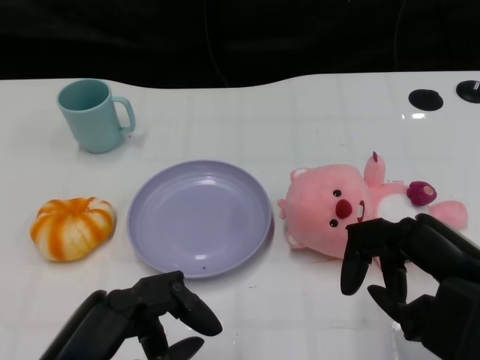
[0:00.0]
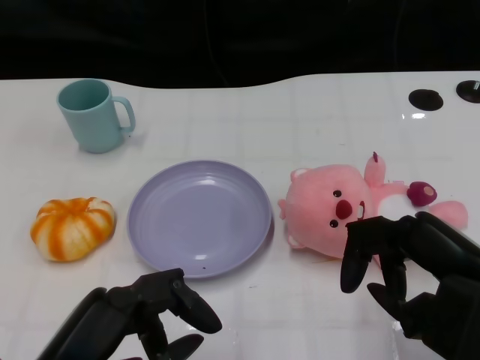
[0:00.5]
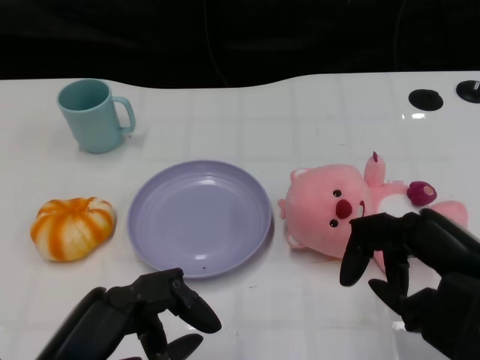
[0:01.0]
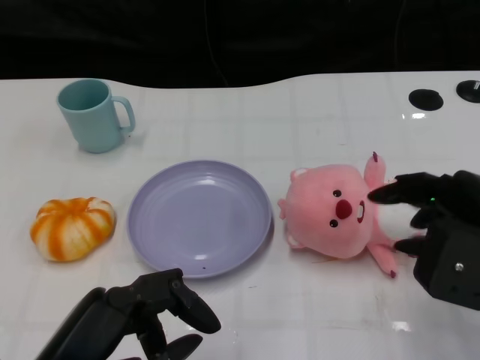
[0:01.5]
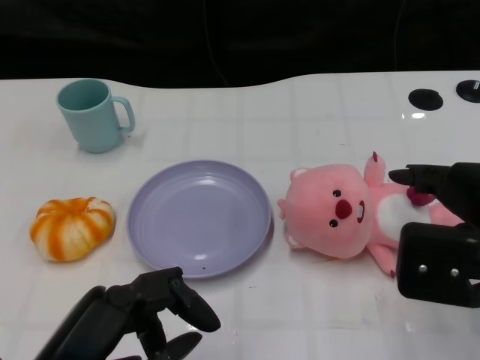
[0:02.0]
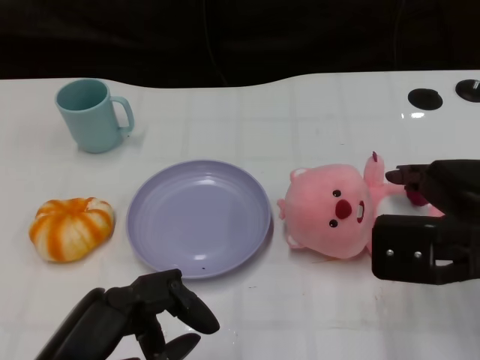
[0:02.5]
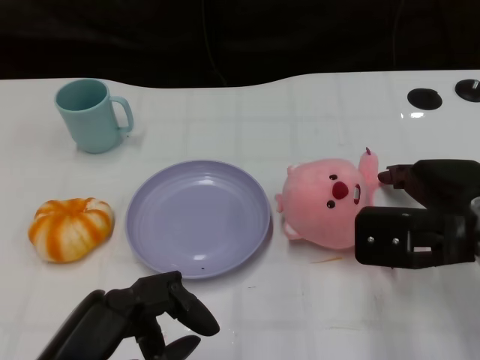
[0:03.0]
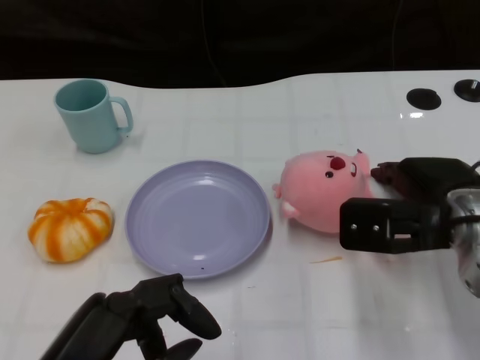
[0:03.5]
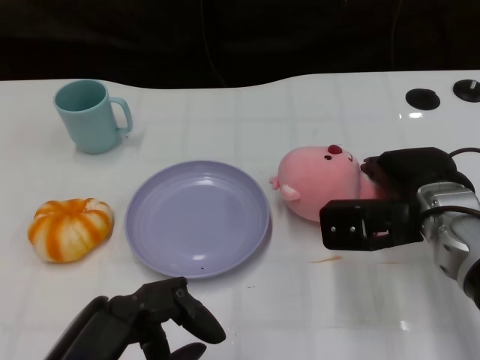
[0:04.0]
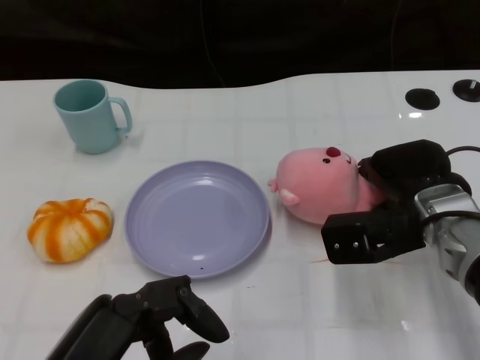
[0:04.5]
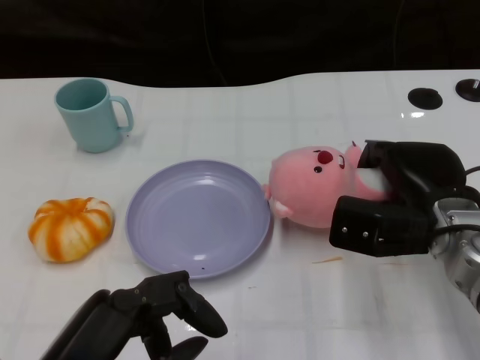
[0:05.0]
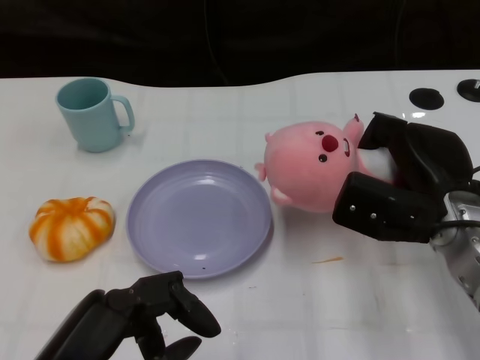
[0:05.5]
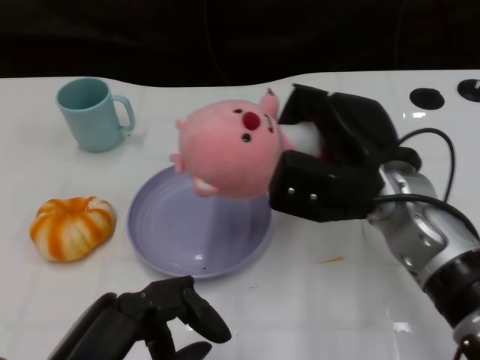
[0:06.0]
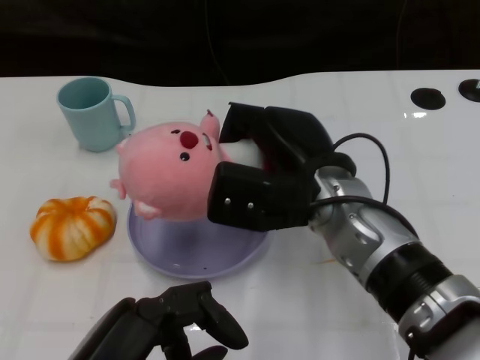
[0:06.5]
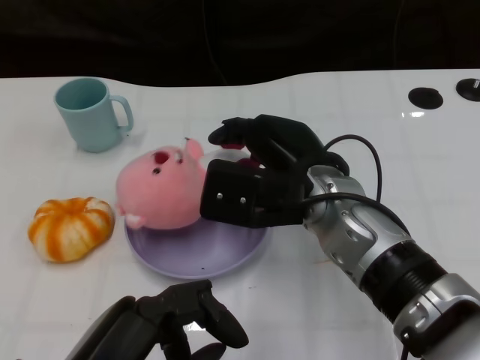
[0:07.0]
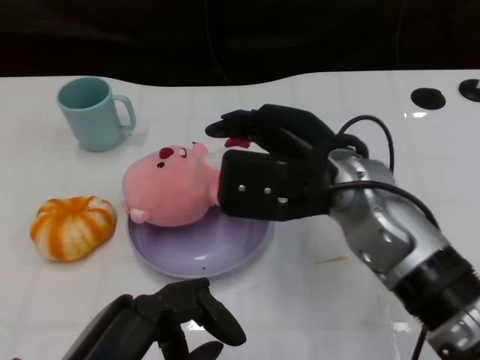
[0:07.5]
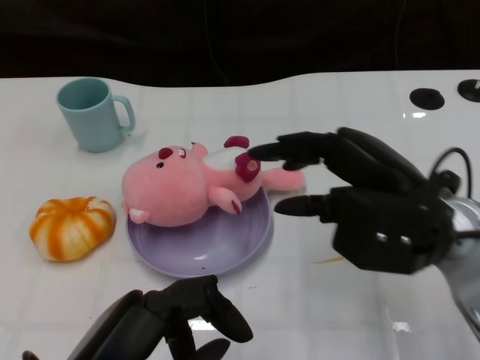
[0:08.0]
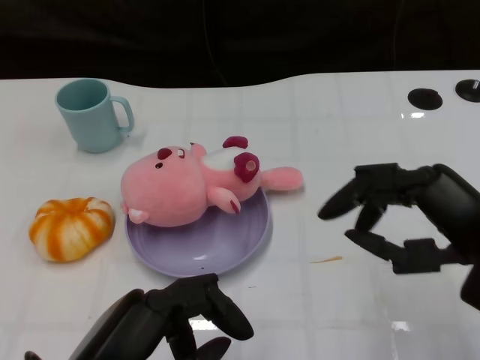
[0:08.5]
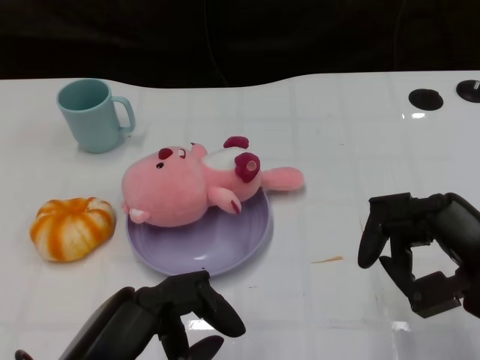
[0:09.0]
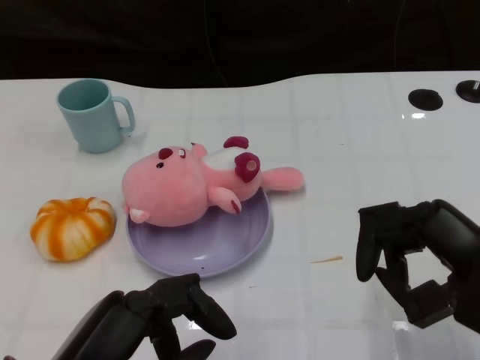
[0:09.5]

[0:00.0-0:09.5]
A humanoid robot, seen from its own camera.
Task of the whole recording: Pick up the doll on the other side of the plate and place it into the plate.
Step, 0:01.0 to 0:05.5: Grasp the pink doll with the right gripper.
Step, 0:06.0 to 0:08.0: Place the pink doll into the plate with the right gripper.
0:02.0 to 0:04.0: The right hand is displaced forward, downward and to the left by roughly 15 cm.
0:05.5 to 0:07.5: The right hand shifts about 15 cm to the left and upward.
0:07.5 to 0:09.5: The right hand travels to the right and backward by roughly 20 cm.

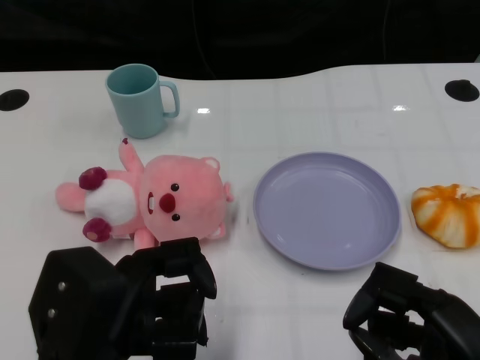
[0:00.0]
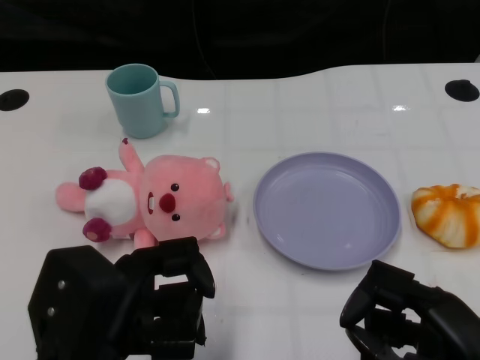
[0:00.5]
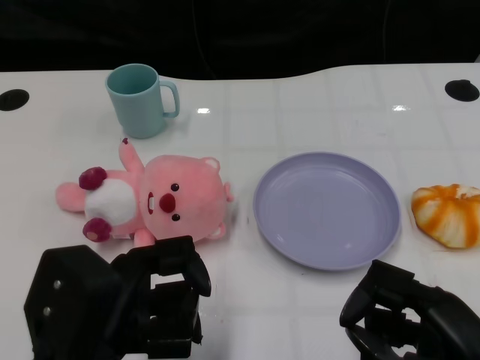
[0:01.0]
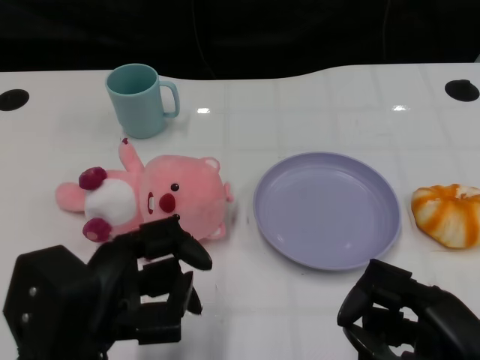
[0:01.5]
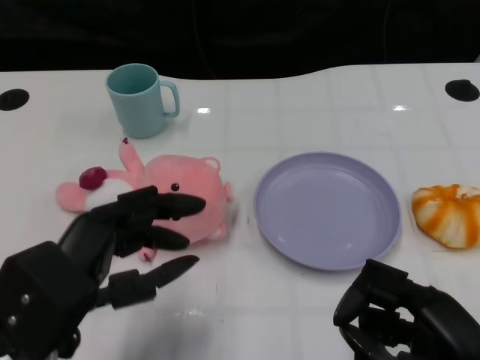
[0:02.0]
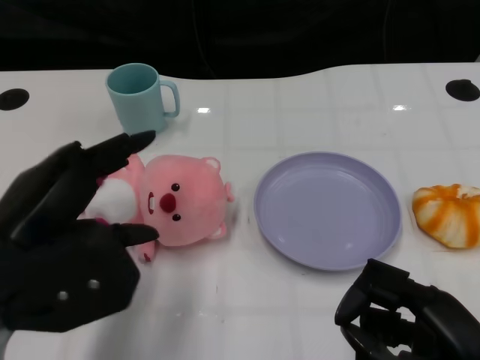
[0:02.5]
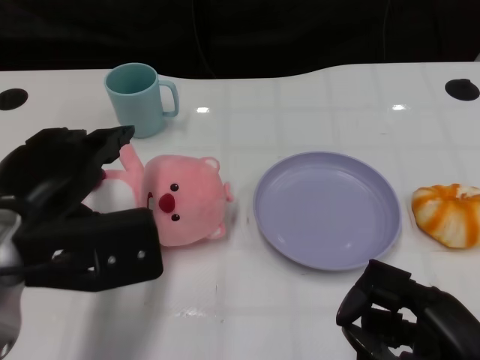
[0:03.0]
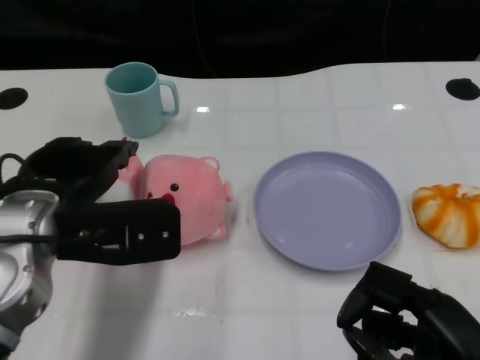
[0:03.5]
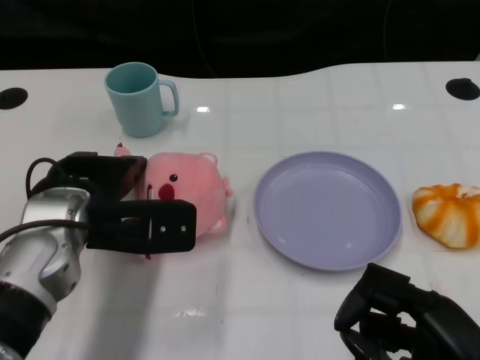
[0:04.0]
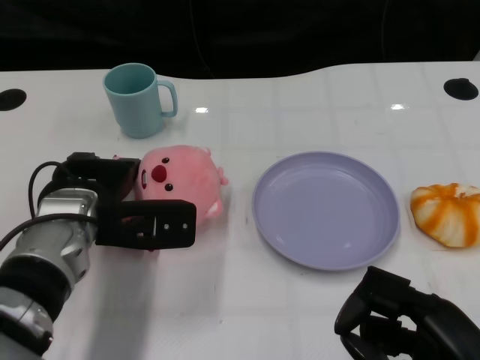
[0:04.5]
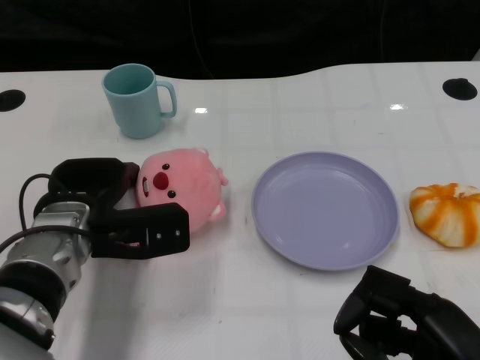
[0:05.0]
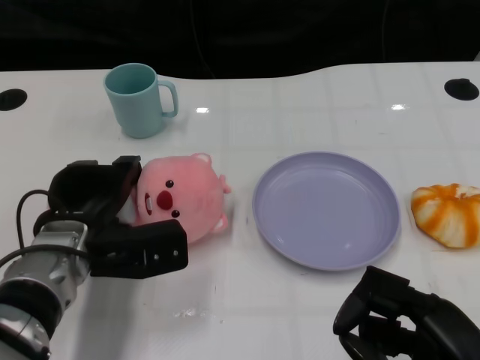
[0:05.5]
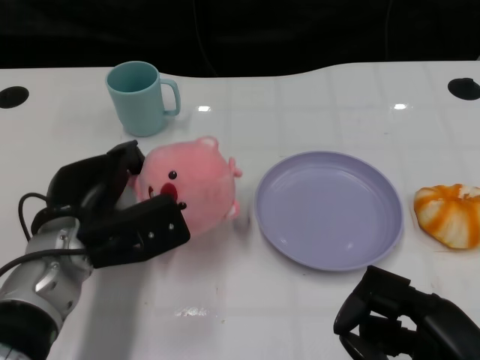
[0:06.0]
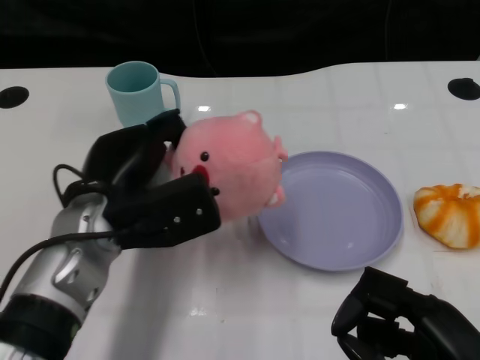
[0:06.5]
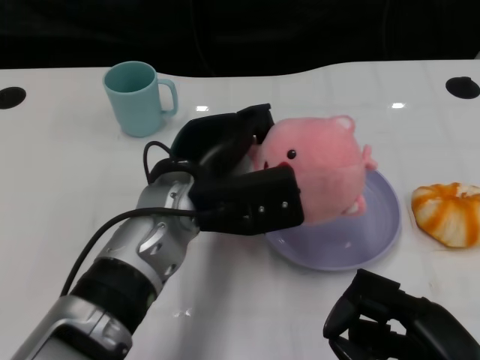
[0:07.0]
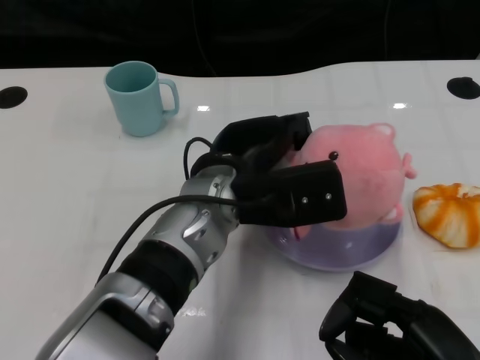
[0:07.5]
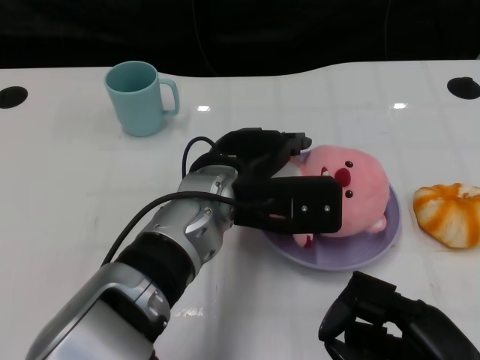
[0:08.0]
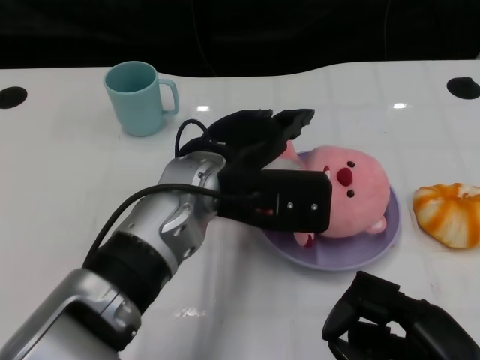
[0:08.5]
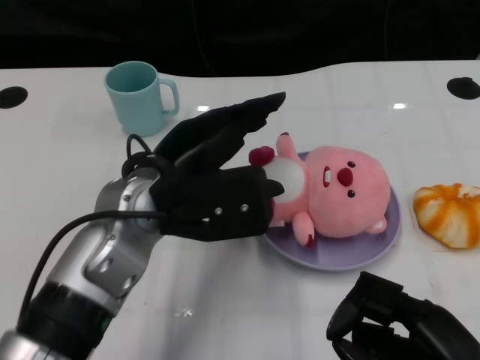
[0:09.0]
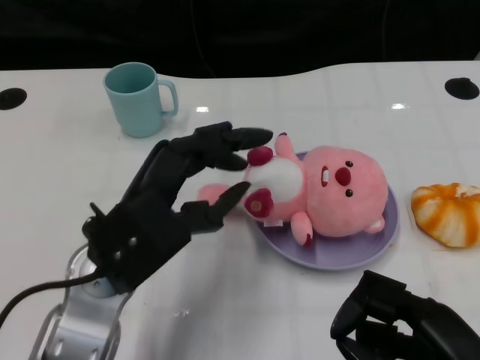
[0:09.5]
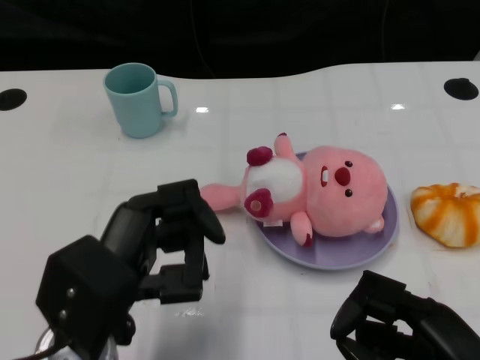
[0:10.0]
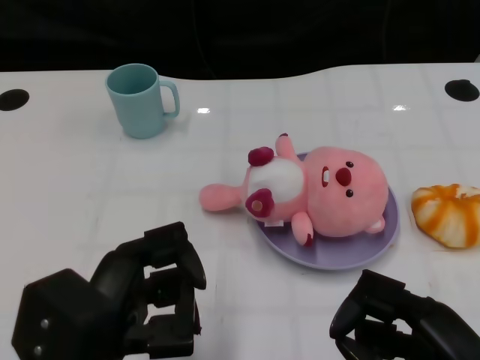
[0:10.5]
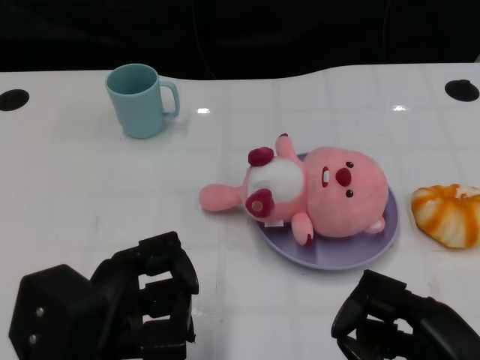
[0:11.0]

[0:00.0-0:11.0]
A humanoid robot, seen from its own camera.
Task of the whole recording: Pick up the doll on one side of the plate and place it into the plate.
Step, 0:01.5 to 0:06.0: Grasp the pink doll with the left gripper.
Step, 0:06.5 to 0:08.5: Place the pink doll into the plate with the left gripper.
0:02.0 to 0:03.5: The left hand is displaced forward by approximately 10 cm.
0:03.5 to 0:05.5: The left hand heads downward, covering roughly 10 cm.
0:05.5 to 0:07.5: The left hand goes some 15 cm to the right and upward.
0:07.5 to 0:09.0: The left hand goes about 5 cm to the left.
0:09.0 to 0:11.0: The left hand is displaced backward and to the left by approximately 15 cm.

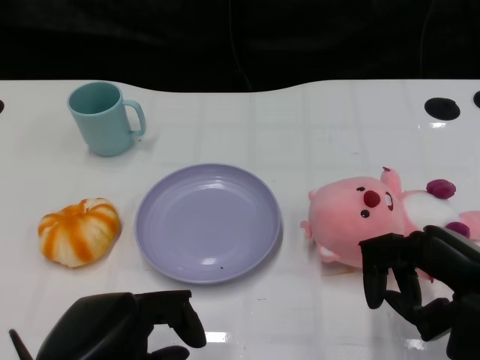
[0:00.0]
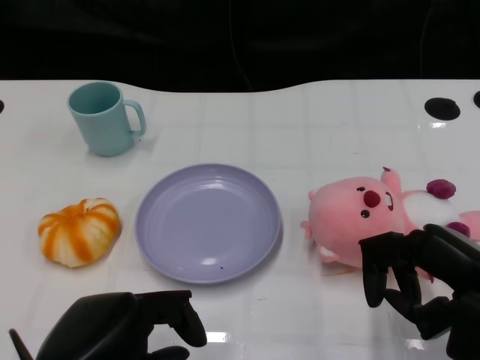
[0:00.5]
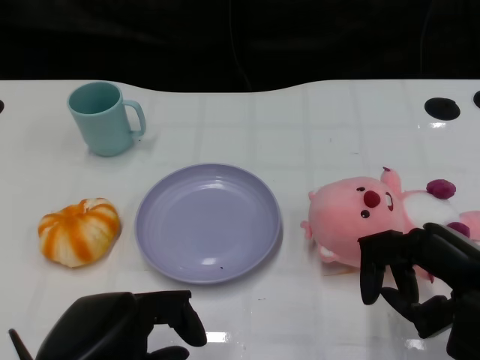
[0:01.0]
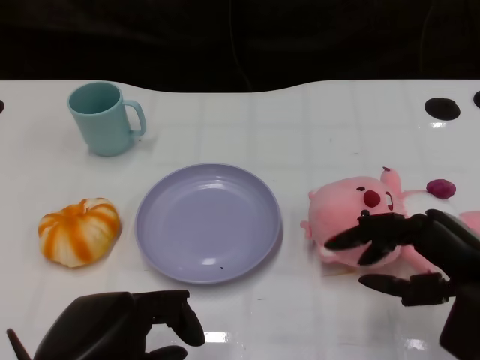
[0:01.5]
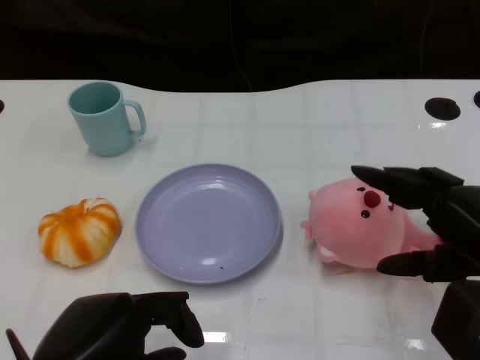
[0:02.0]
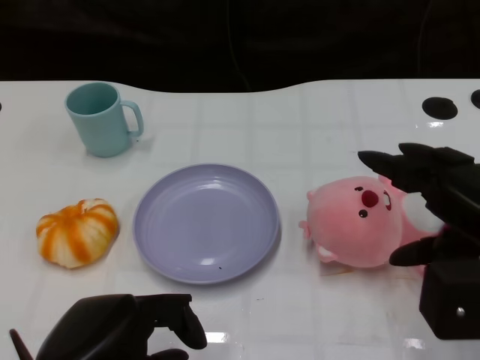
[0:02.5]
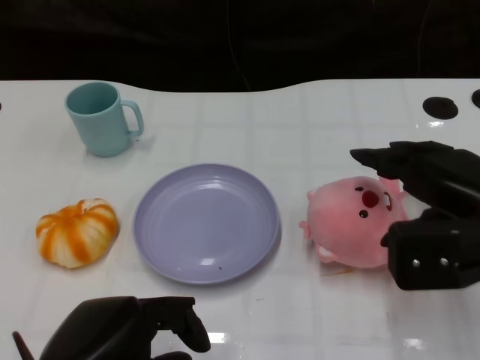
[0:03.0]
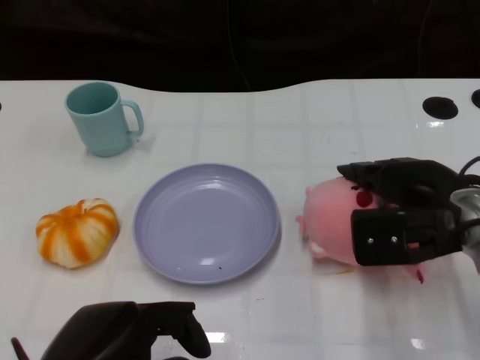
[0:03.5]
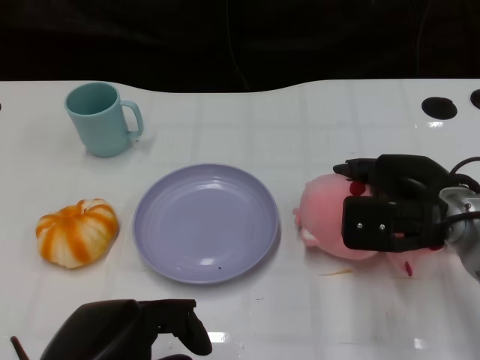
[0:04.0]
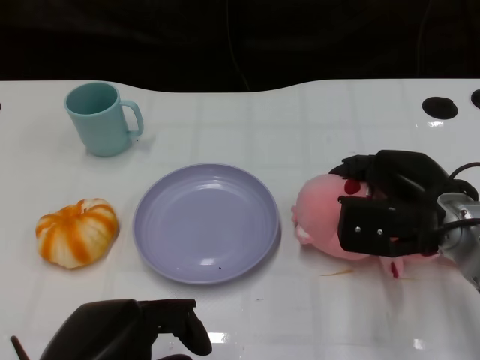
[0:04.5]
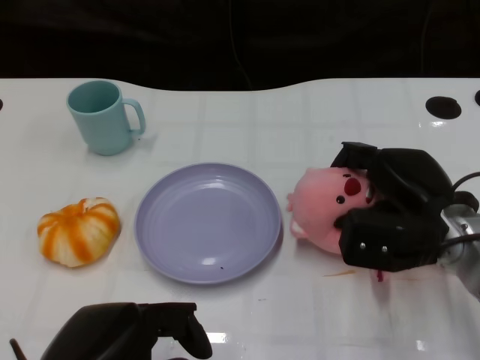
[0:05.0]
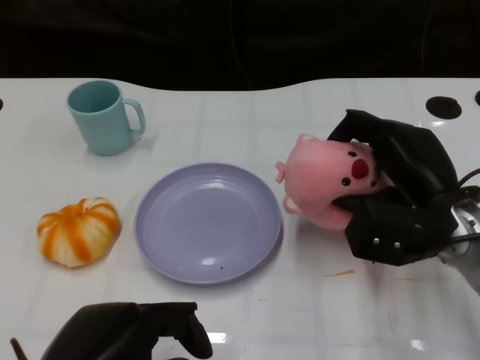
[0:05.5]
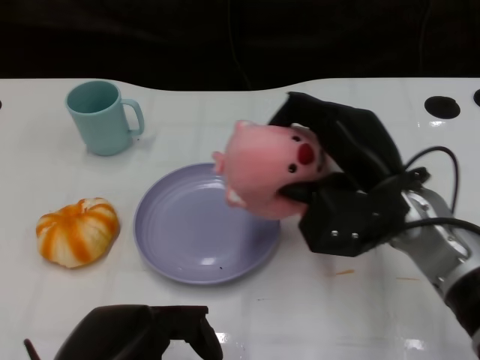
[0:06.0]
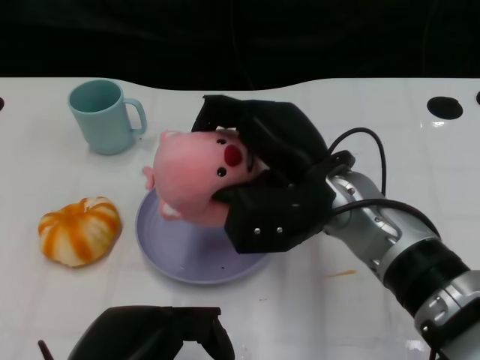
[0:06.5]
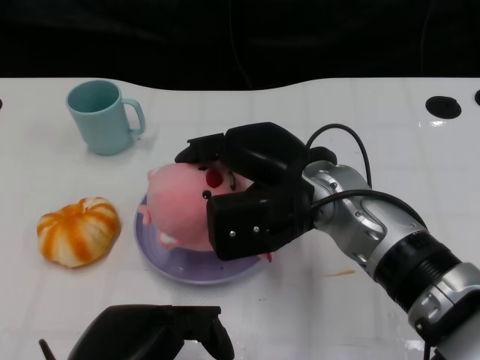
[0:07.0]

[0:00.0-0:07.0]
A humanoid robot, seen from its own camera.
Task of the whole recording: Pick up the doll on the other side of the plate and place it into the plate.
Step, 0:01.0 to 0:06.0: Grasp the pink doll with the right gripper.
0:02.0 to 0:03.5: The right hand heads forward, covering about 10 cm.
0:05.0 to 0:07.0: The right hand moves to the left and upward, roughly 15 cm.
